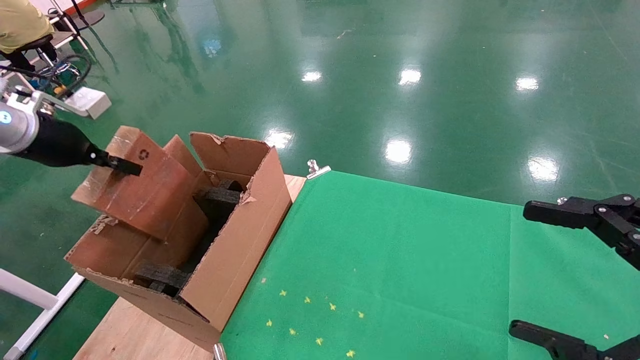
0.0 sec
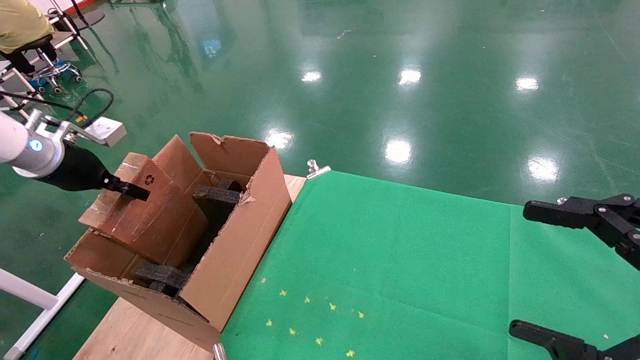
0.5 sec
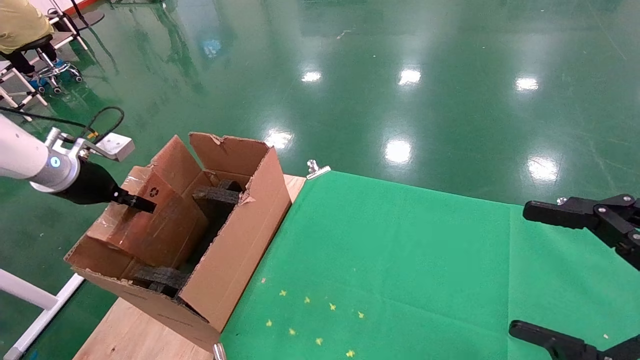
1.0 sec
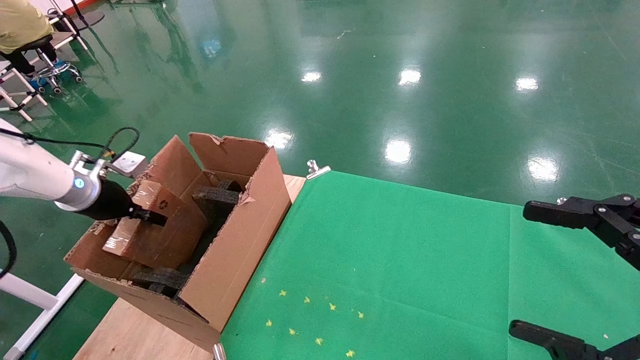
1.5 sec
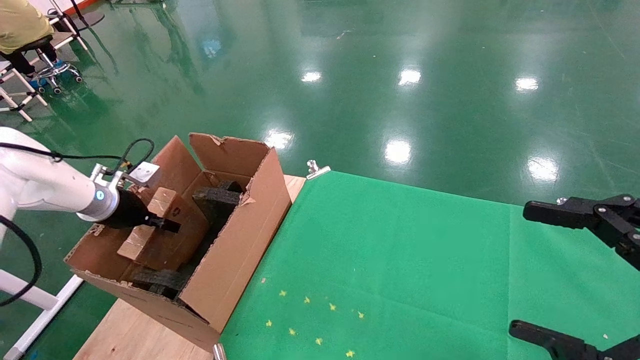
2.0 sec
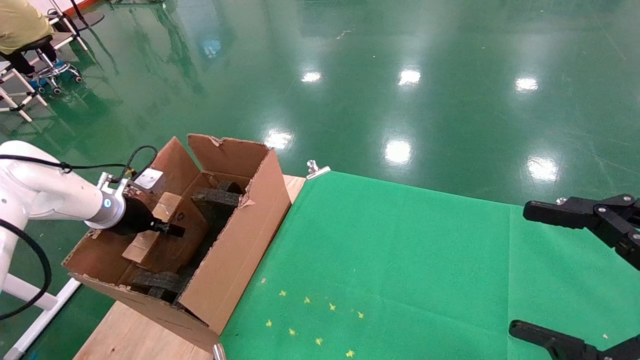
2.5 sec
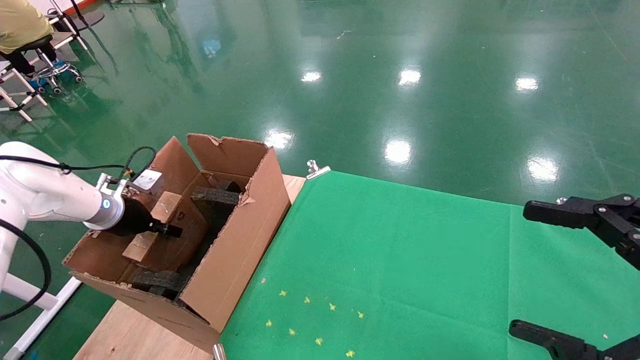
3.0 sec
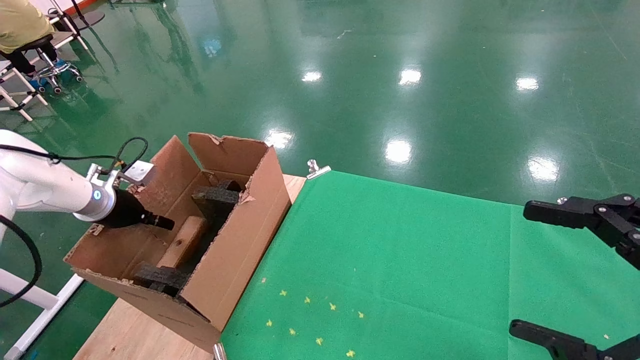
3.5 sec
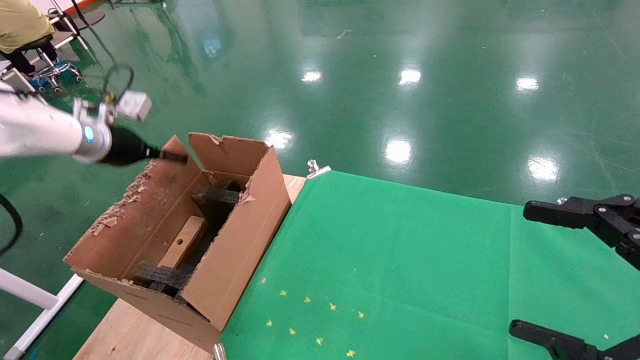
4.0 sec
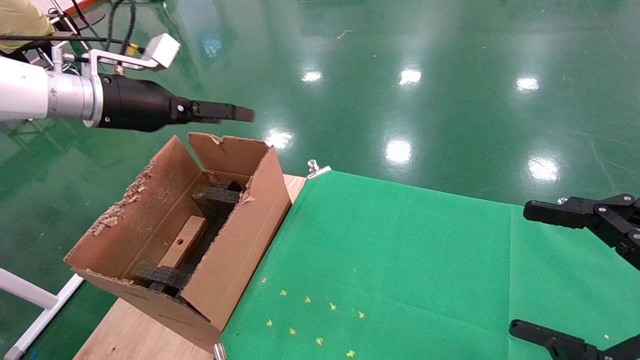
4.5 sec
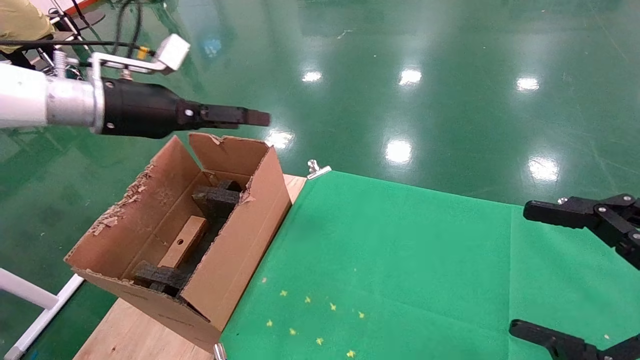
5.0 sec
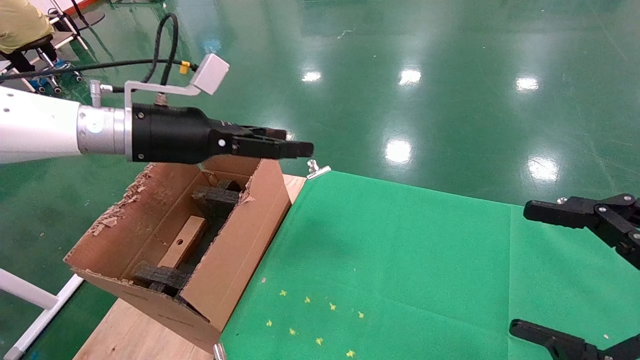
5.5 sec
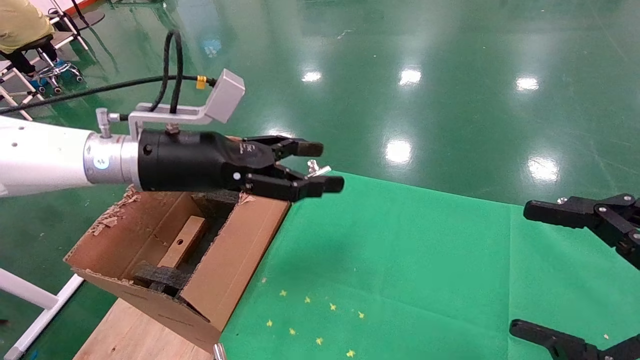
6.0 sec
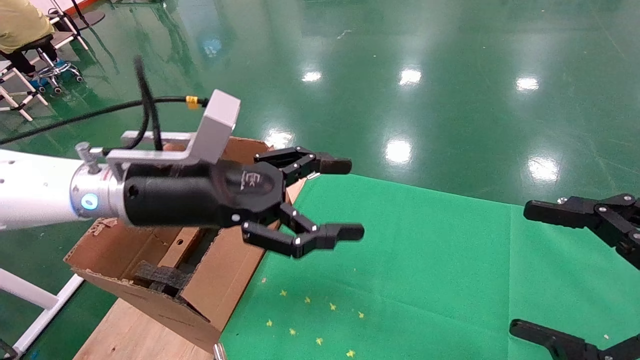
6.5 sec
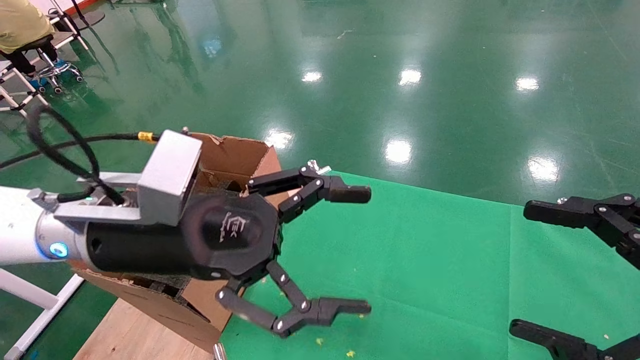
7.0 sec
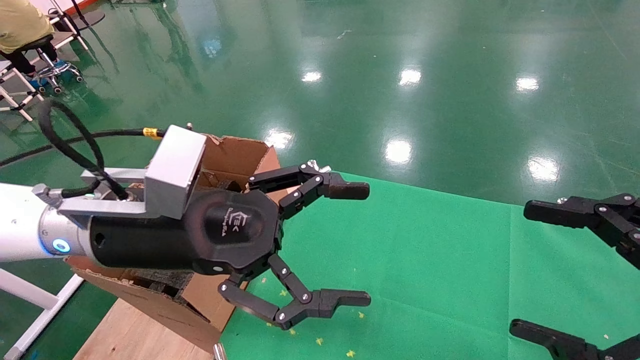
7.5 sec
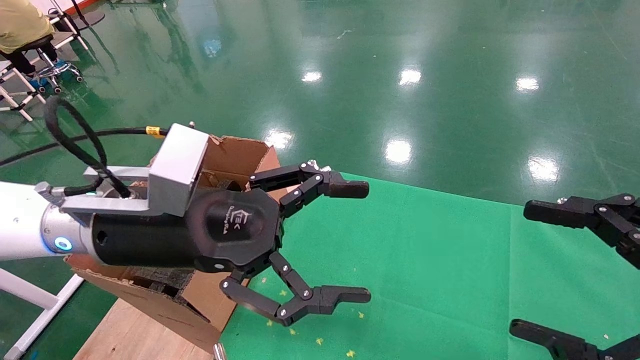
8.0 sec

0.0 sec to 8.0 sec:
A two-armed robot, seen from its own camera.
Task of the whole recording: using a robotic arm to pick up a cardboard box and palace it the carton.
Step, 0.0 sec to 4.5 sec: Place the mouse and the power cord paper box into the container.
0.0 sec to 2.0 sec: The left gripper heads downward and forward, covering about 15 cm.
2.0 sec to 4.0 sec: The left gripper moves upward, approximately 10 cm, and opens.
4.0 sec to 6.0 sec: The left gripper travels to the right and backward by roughly 25 cm.
6.0 sec to 8.0 sec: The left gripper is displaced backward by some 10 cm.
